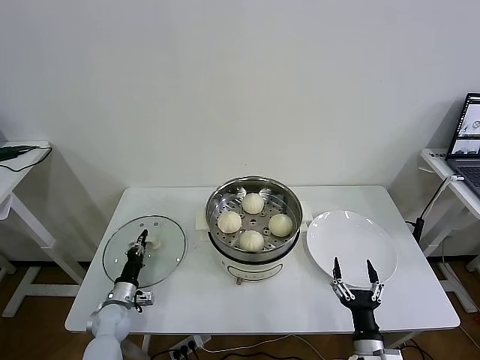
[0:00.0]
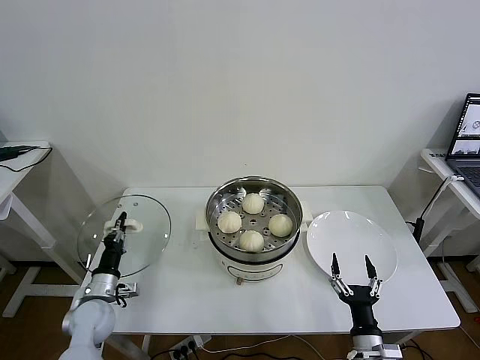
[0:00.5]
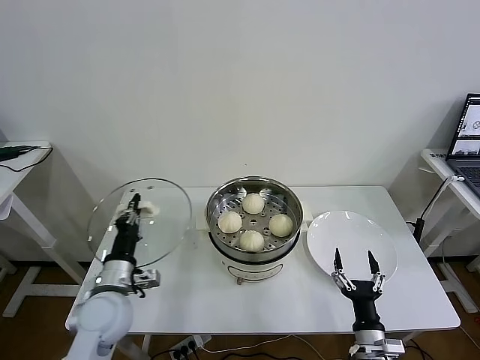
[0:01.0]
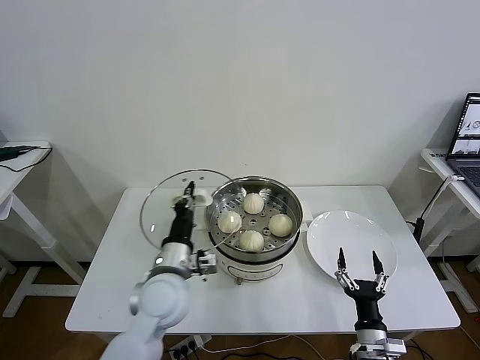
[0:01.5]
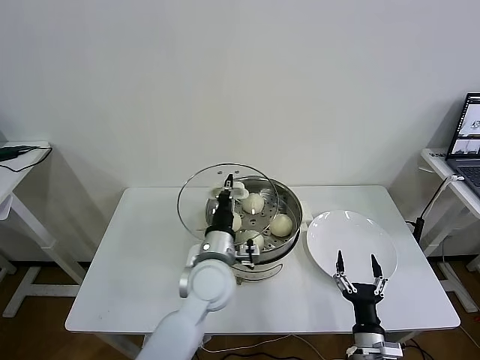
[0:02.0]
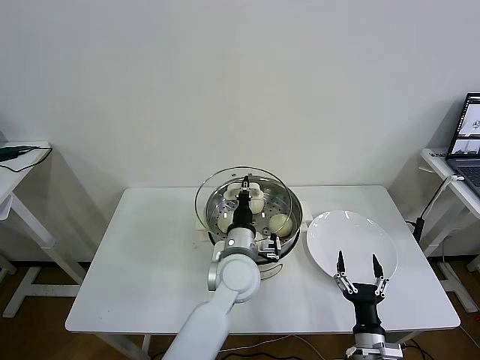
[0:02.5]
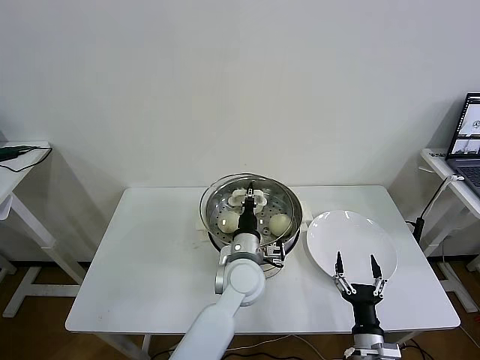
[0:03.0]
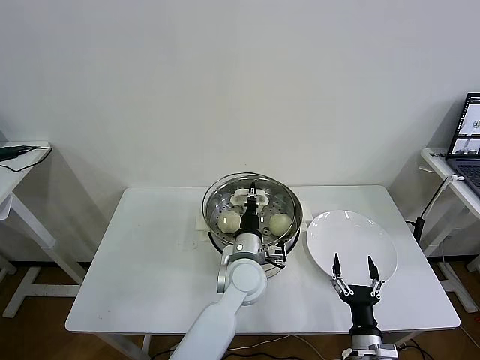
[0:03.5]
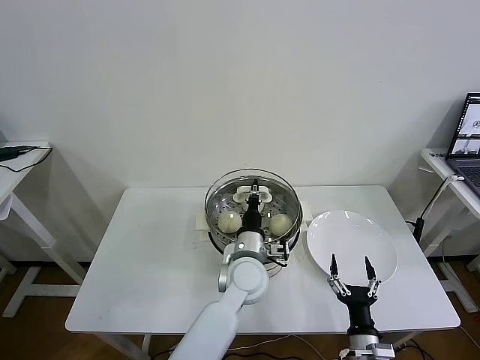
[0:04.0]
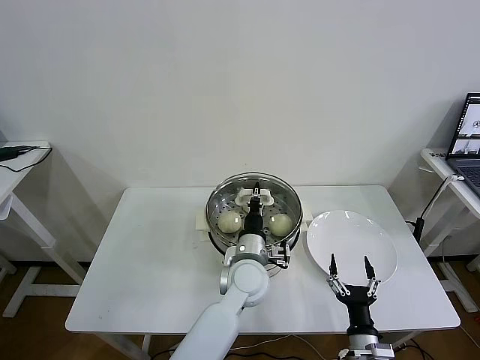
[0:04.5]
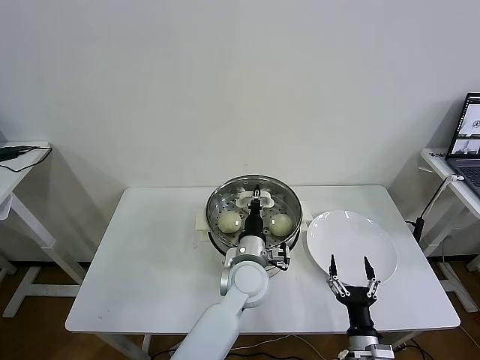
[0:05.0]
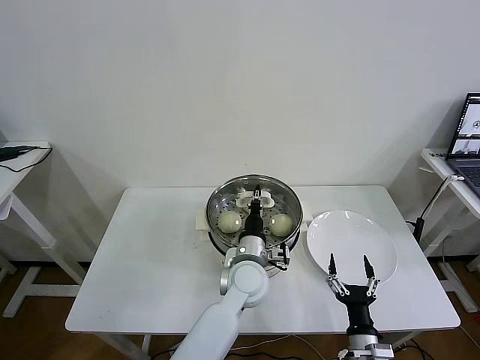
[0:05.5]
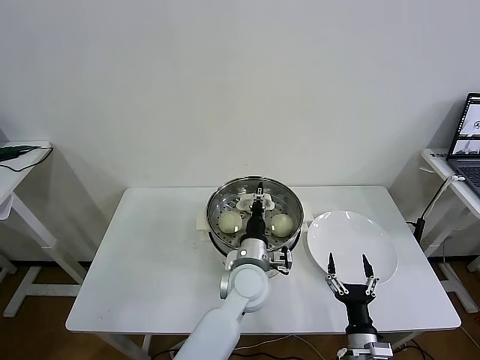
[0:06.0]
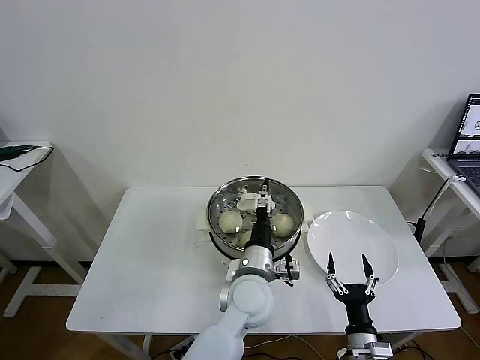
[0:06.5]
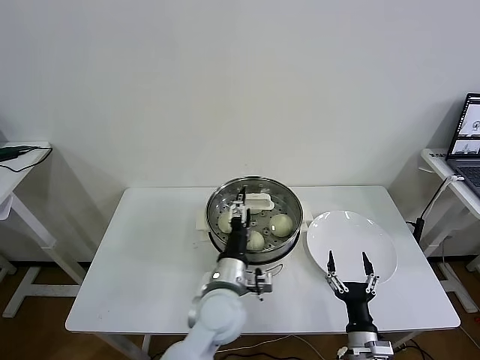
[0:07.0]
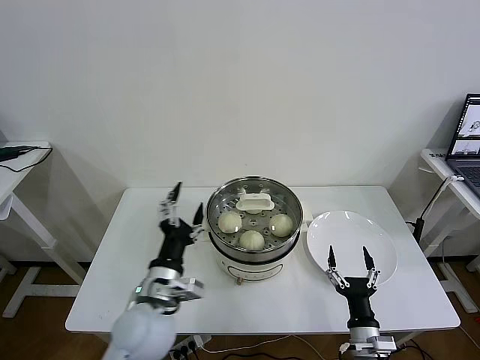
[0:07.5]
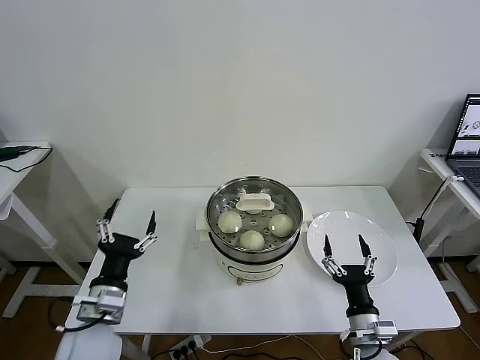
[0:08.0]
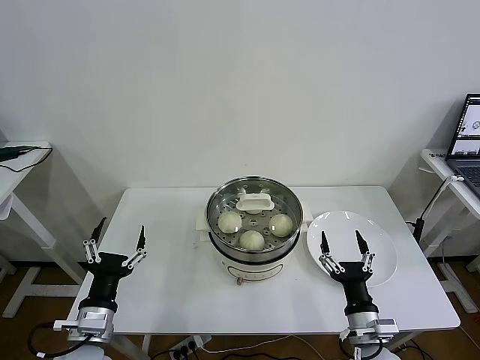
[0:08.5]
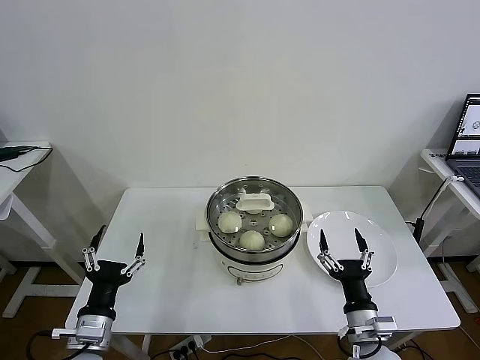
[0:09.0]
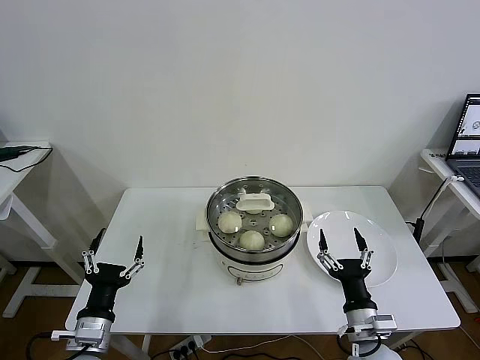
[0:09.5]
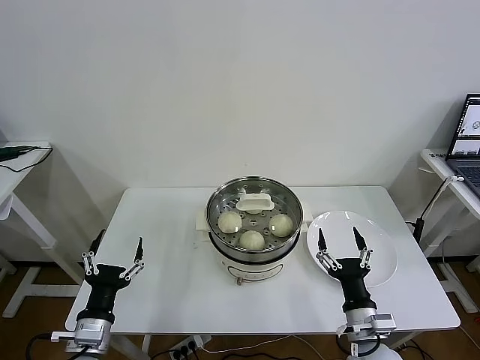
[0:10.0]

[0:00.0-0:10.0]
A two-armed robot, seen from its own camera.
Task of the whole recording: take steamed baozi put them in steamer then cover it.
Step, 0.0 to 6.5 s: Place the pot lid on the steamer with left gripper.
0.0 to 2.0 s: The left gripper is displaced to the right and upward by about 40 cm.
2.0 to 4.0 s: The left gripper heads to the right, covering some 5 cm.
4.0 to 6.0 s: Both grippers stay put.
6.0 to 8.0 s: The left gripper moves to the left and backward, roughly 30 cm, and opens. The right gripper travels upward by some 5 cm.
8.0 to 10.0 s: The left gripper changes place by some 5 cm.

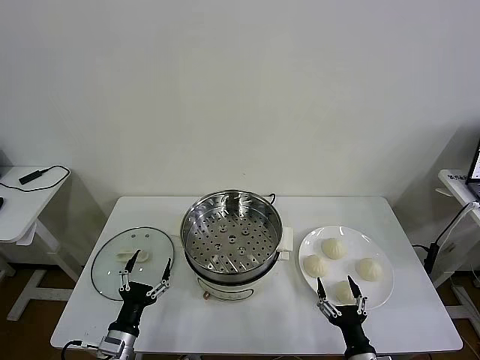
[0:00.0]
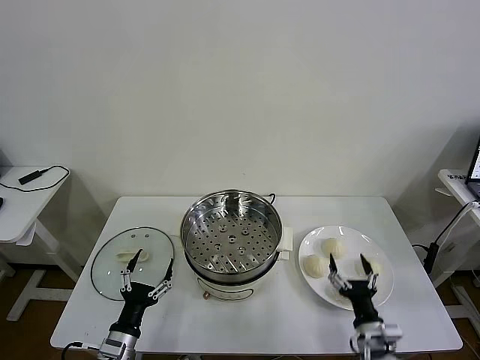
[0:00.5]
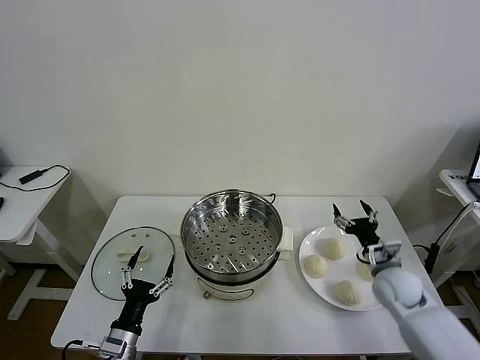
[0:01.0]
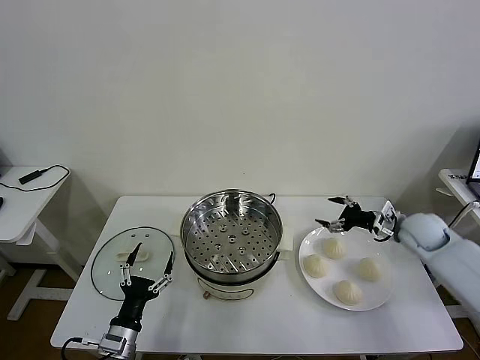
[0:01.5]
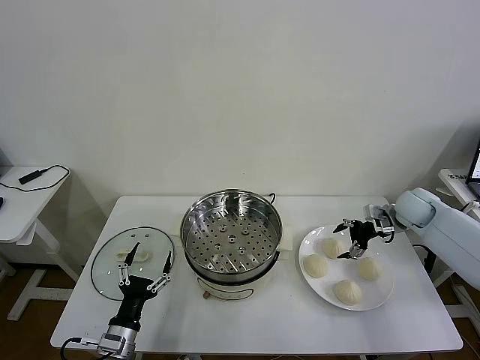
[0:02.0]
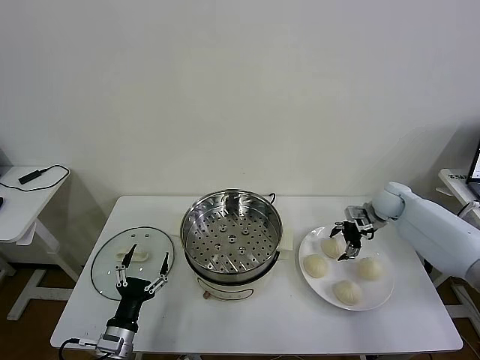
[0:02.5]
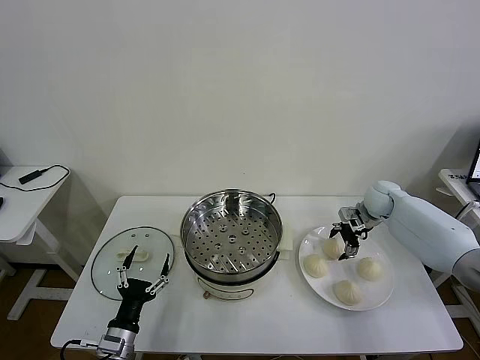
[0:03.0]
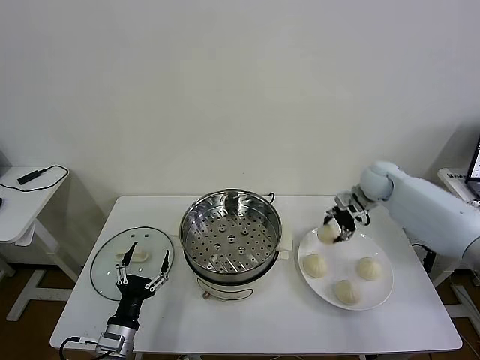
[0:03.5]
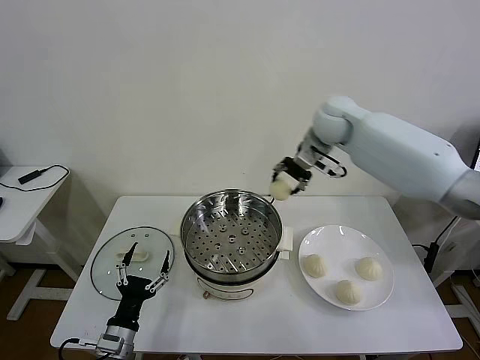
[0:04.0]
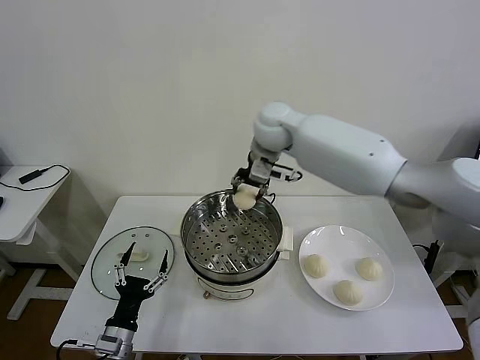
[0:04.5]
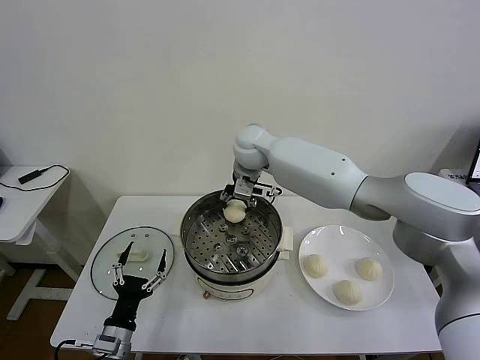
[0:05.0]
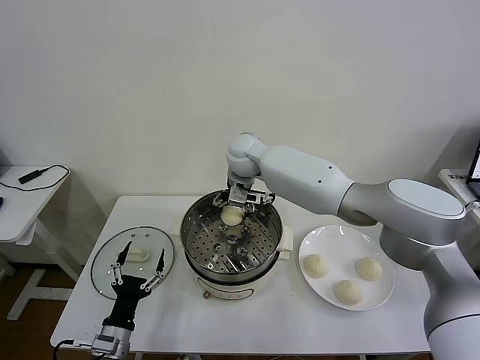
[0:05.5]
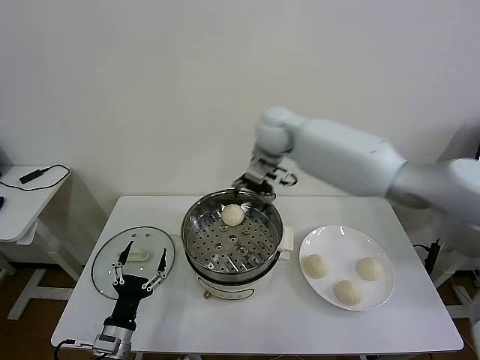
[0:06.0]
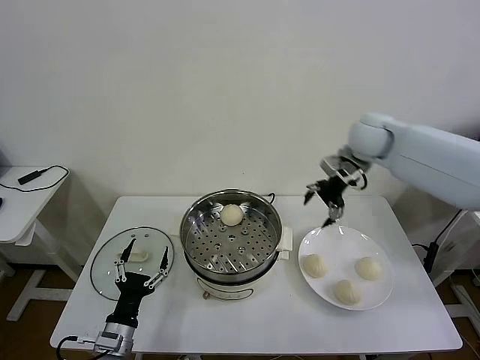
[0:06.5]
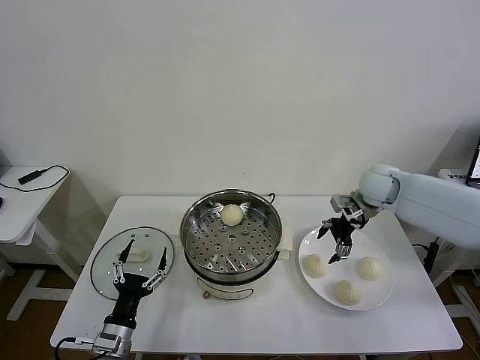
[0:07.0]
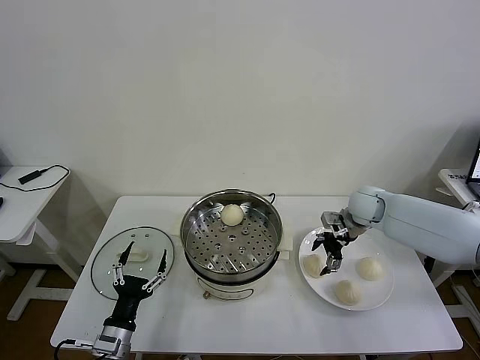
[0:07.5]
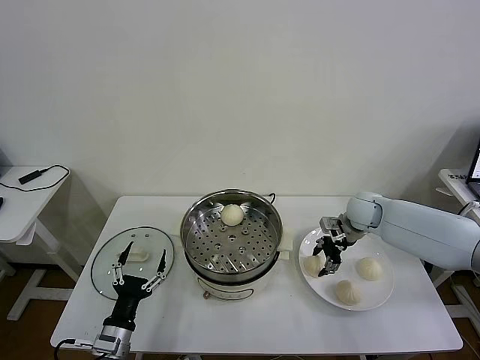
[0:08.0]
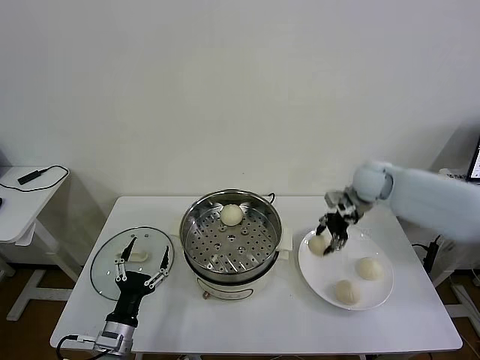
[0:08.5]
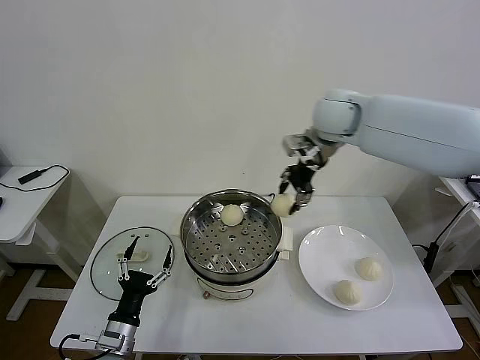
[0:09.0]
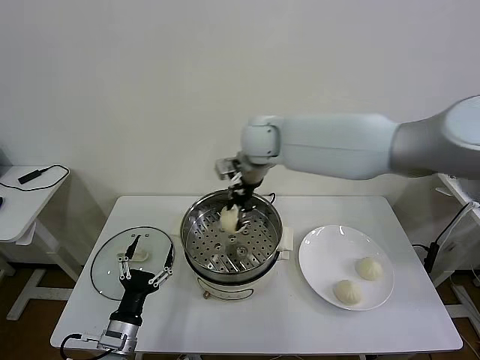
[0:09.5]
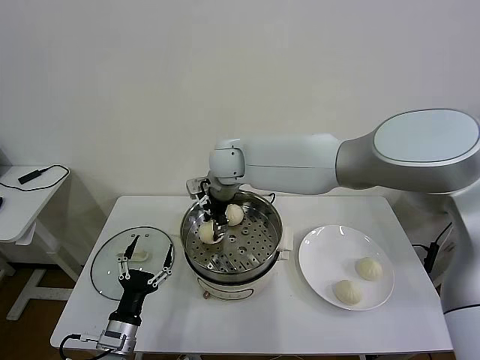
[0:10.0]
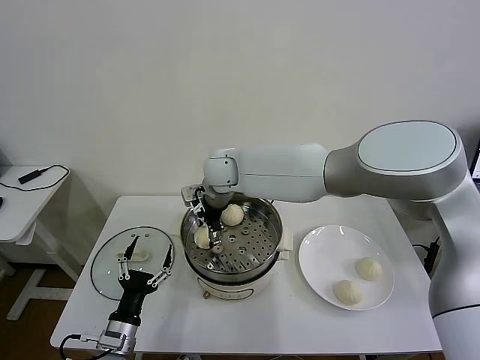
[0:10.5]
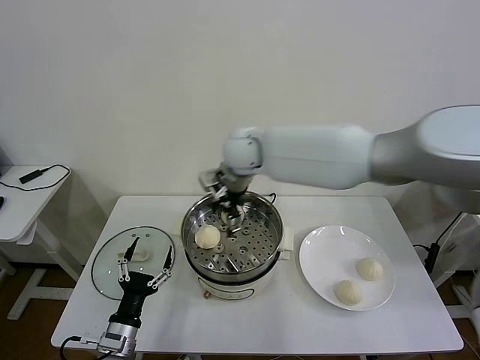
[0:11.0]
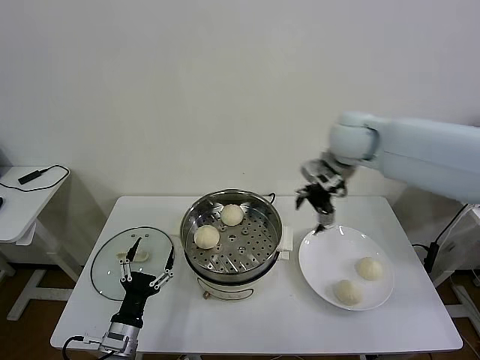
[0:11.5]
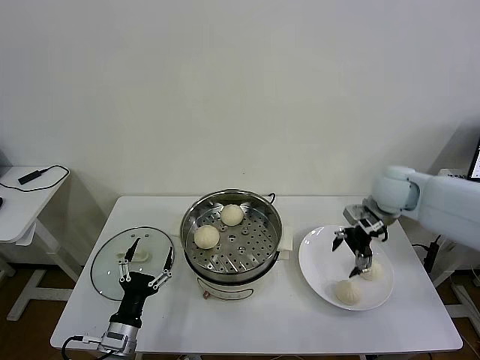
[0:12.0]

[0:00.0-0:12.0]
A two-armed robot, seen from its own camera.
Task of the whole recording: take steamed baozi put them in steamer then cover it.
Step, 0.0 to 3.0 s: Grasp the baozi in the plate with right gripper.
Step, 3.5 to 5.0 s: Place the baozi on the steamer with right gripper.
Step, 6.0 to 8.0 s: Grasp the baozi in the plate with right gripper.
Step, 8.5 to 10.5 s: Place the baozi on the steamer with right gripper.
2.0 to 4.0 s: The right gripper shifts approximately 35 cm to the left and upward, and closes up.
4.0 to 6.0 s: The right gripper moves roughly 15 cm to the left and comes back, and opens its fingers.
6.0 to 8.0 s: The right gripper goes some 30 cm downward and to the right, and closes its fingers.
8.0 to 10.0 s: The right gripper shifts roughly 40 cm to the left and upward.
10.0 to 12.0 s: The right gripper heads to the right, covering approximately 35 cm, and opens up.

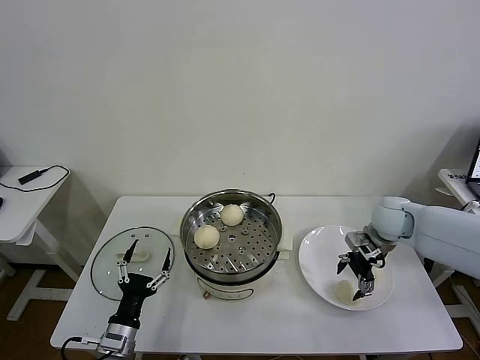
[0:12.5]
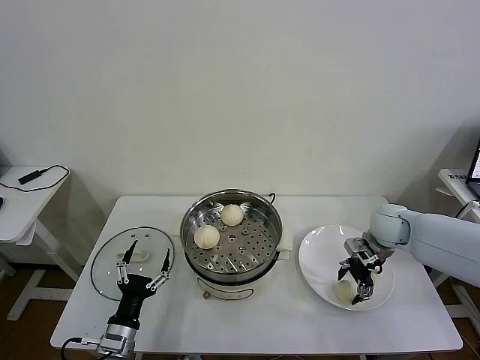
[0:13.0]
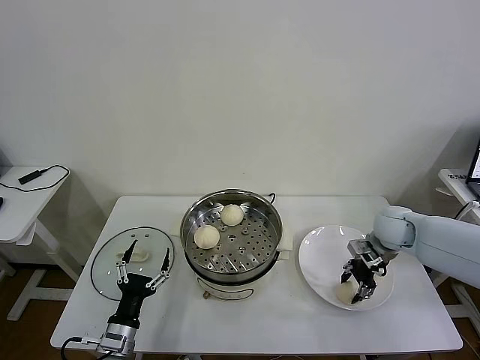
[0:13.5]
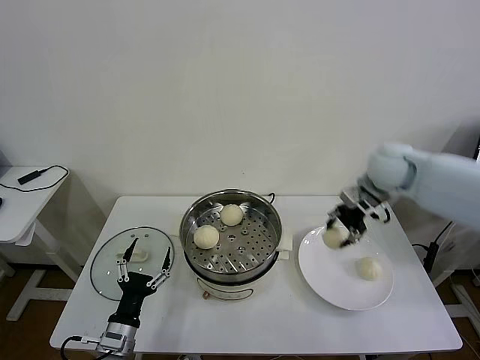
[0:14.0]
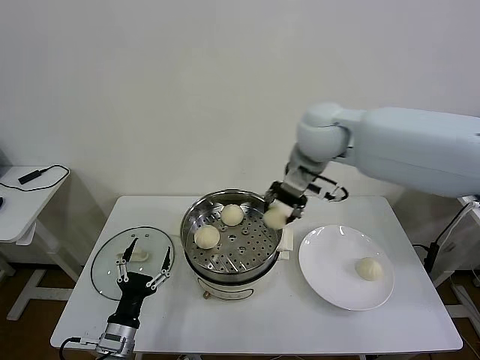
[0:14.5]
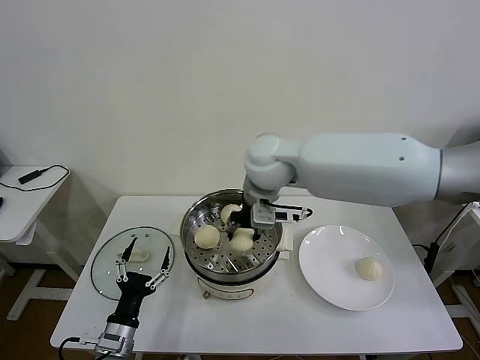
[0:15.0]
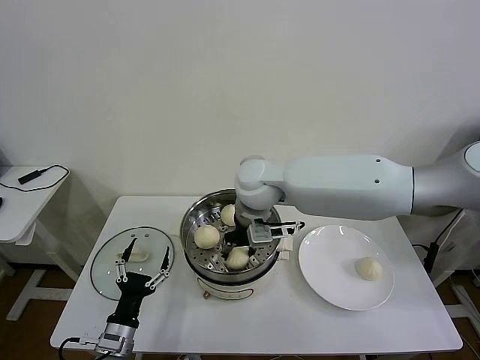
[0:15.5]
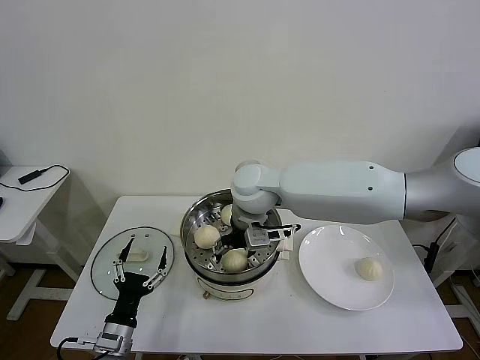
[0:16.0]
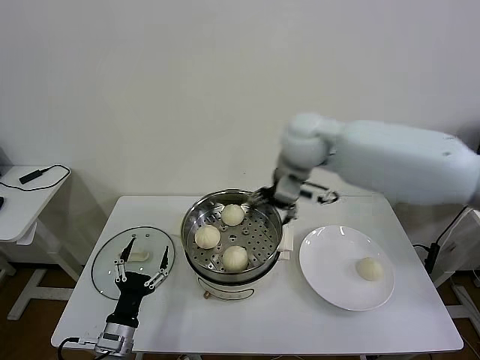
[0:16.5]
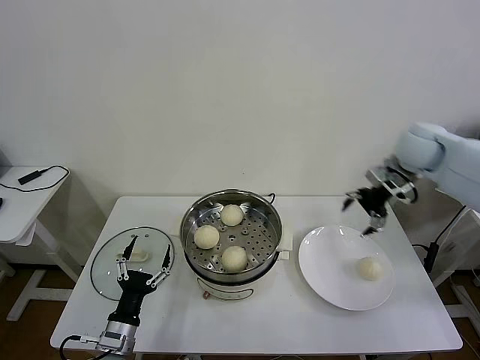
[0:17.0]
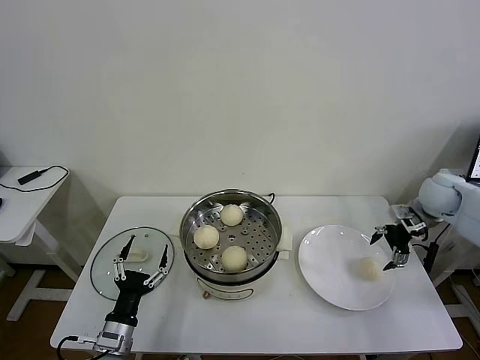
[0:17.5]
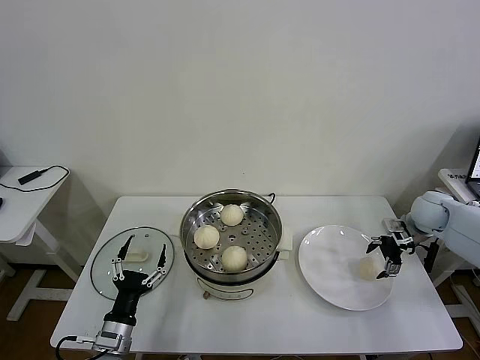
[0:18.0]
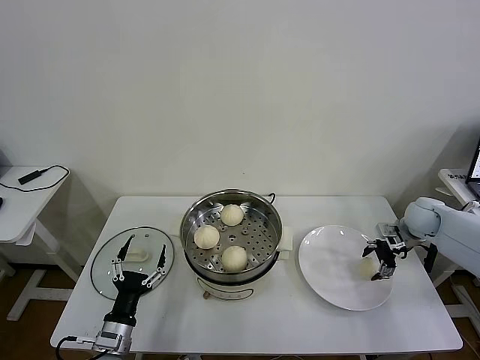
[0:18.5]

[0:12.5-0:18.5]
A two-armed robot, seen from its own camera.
Task of the whole recording: take steamed baozi put them in steamer then cover it.
Step, 13.5 to 15.5 s: Place the baozi on the steamer with right gripper.
12.5 to 14.5 s: The right gripper shifts roughly 30 cm to the left and upward, and closes its fingers.
14.5 to 16.5 s: The right gripper reaches approximately 10 cm to the left, then returns, and opens.
16.5 to 18.5 s: The right gripper is displaced to the right and downward by some 40 cm.
